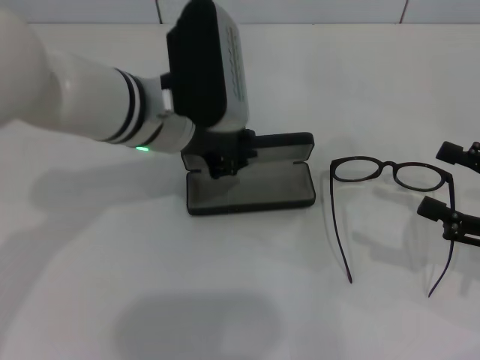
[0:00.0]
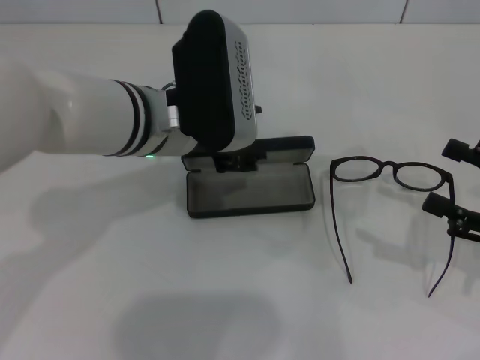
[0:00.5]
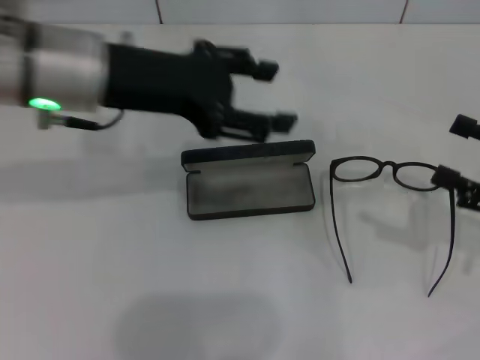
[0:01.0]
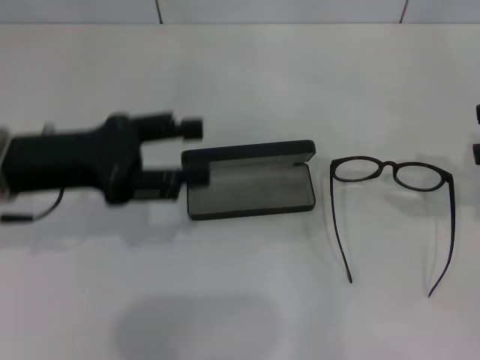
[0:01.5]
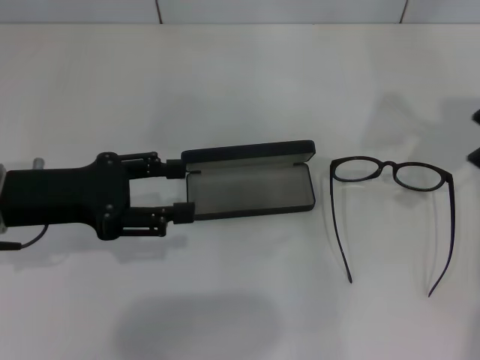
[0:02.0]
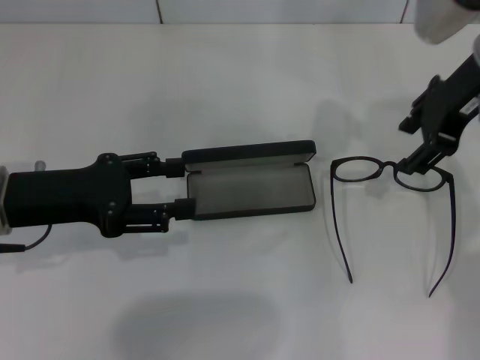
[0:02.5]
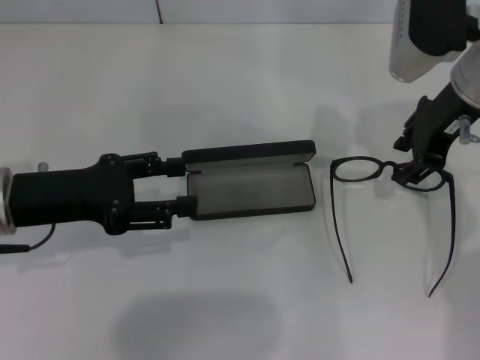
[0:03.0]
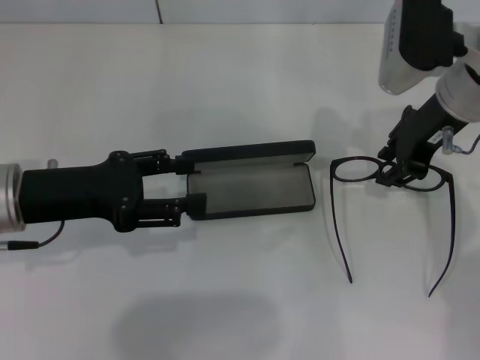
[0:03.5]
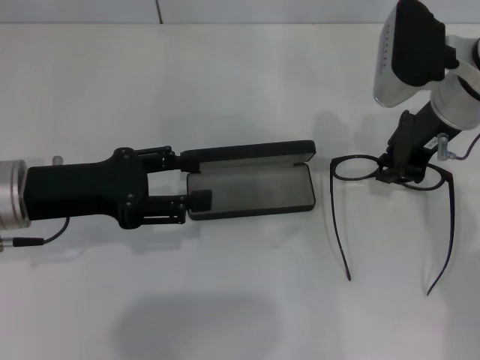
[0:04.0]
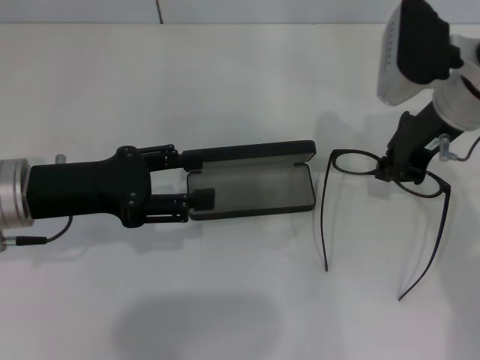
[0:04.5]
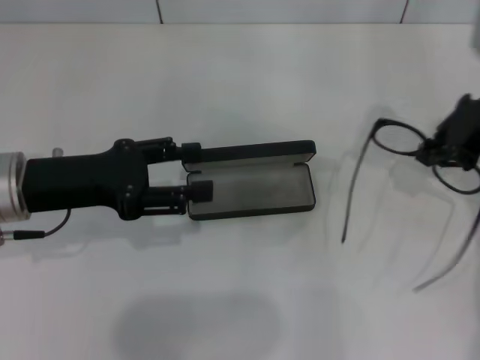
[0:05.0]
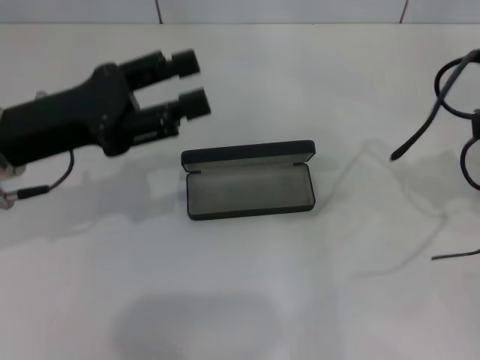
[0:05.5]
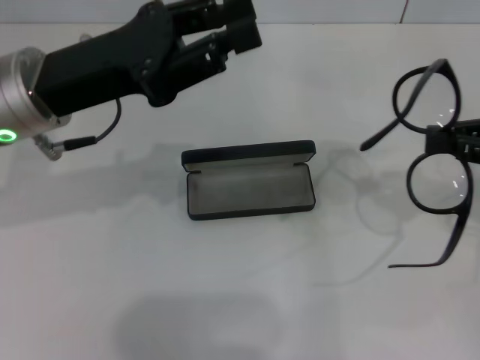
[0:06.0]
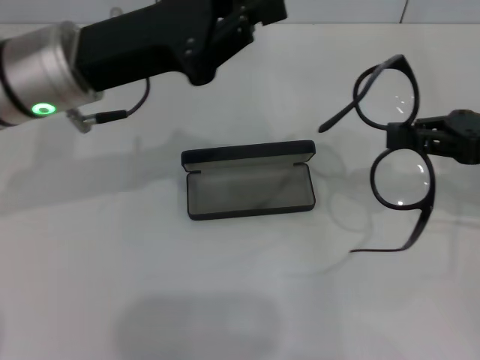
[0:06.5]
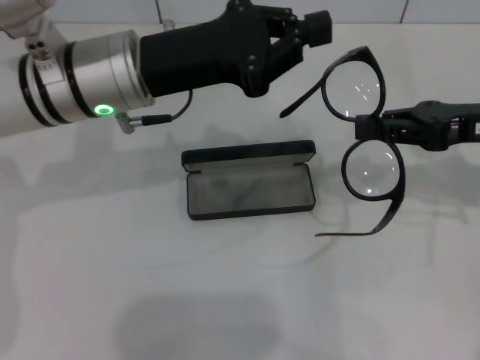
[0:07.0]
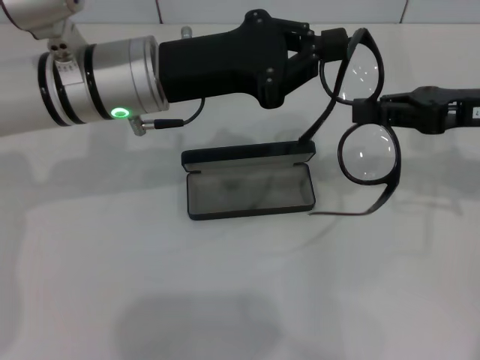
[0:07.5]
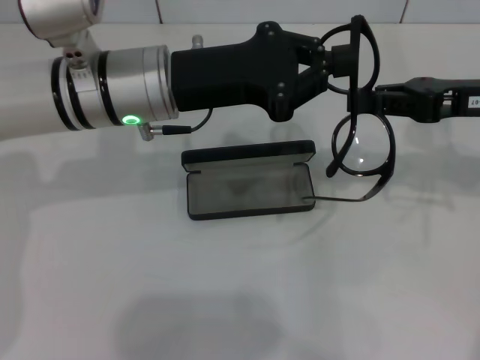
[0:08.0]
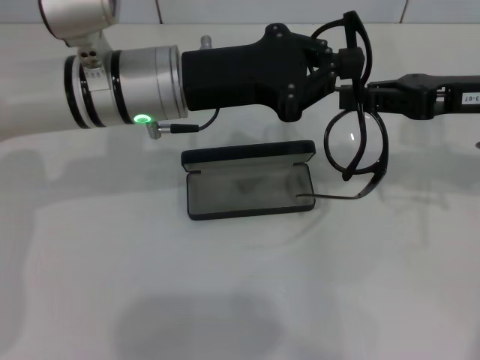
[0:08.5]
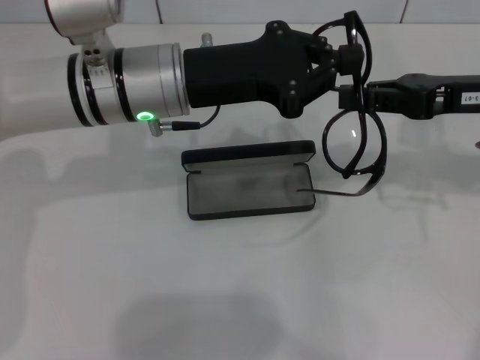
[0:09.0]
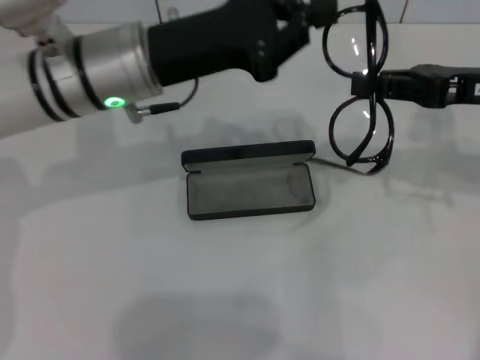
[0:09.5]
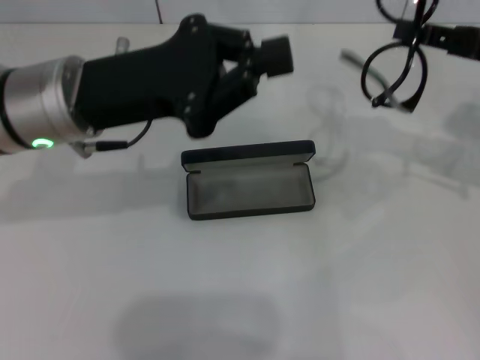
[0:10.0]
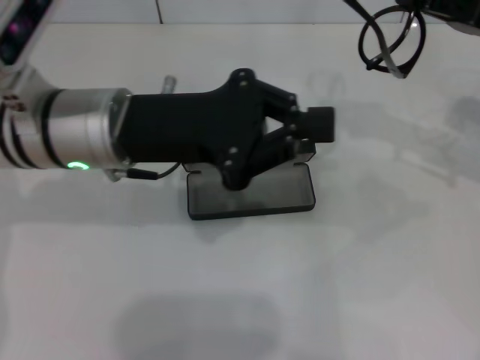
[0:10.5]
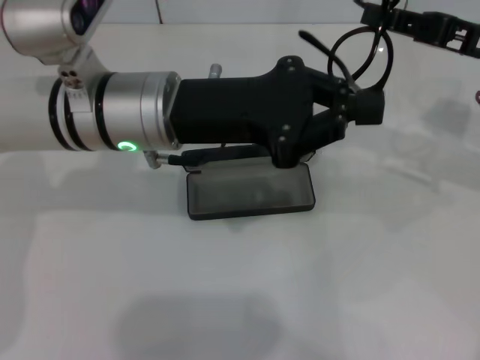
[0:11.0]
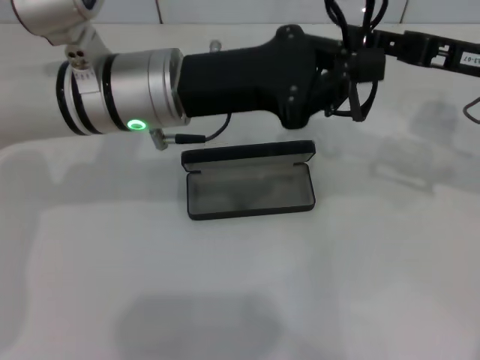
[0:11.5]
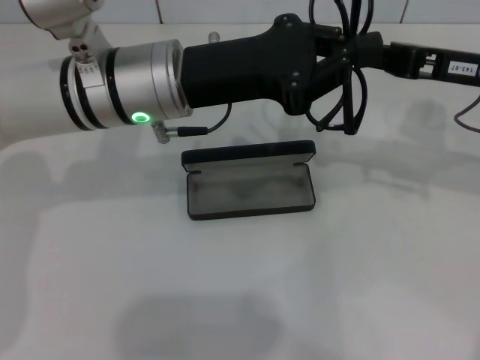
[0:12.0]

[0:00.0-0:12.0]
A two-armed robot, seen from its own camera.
Step, 0:00.0 to 0:04.0: Grab the eyeglass frame with your right hand.
0:00.0 to 0:02.0: The left gripper is displaced to the left and backward by some 15 cm, and opens up; the right gripper shifts about 25 cm upward and forward.
0:02.0 to 0:04.0: The right gripper goes approximately 15 cm downward and to the left, and closes.
0:04.0 to 0:06.0: The left gripper heads upward, covering approximately 5 cm. Meanwhile the right gripper moves to the right and backward, roughly 15 cm.
0:06.0 to 0:08.0: The left gripper is displaced to the right by roughly 5 cm, and closes. Meanwhile the right gripper heads to the left, covering some 5 cm.
0:08.0 to 0:10.0: The left gripper moves to the left, about 5 cm.
0:10.0 to 0:12.0: The right gripper travels to the left by approximately 5 cm. The left gripper shifts about 5 cm to the right.

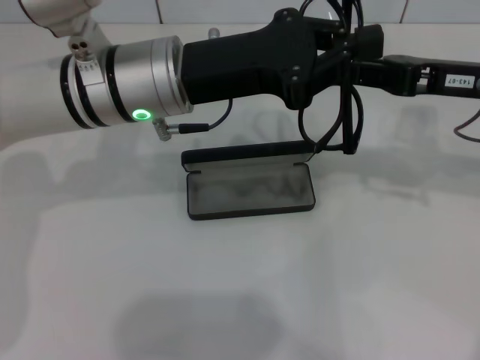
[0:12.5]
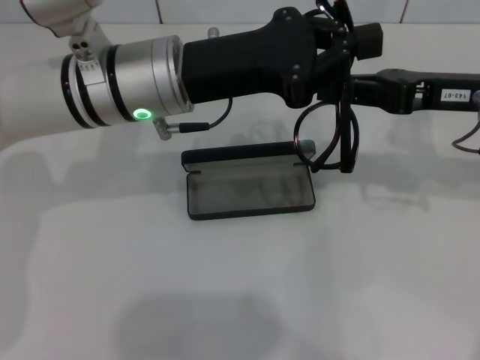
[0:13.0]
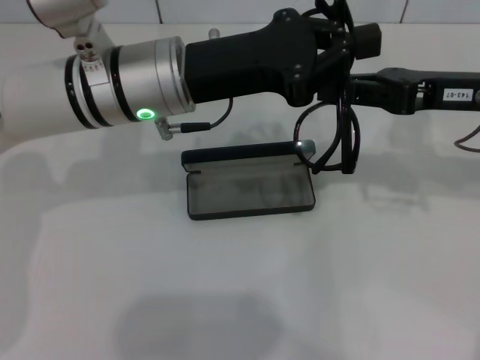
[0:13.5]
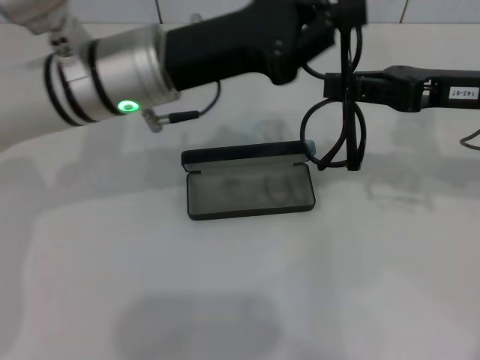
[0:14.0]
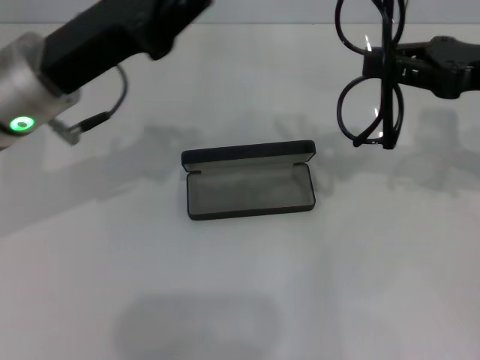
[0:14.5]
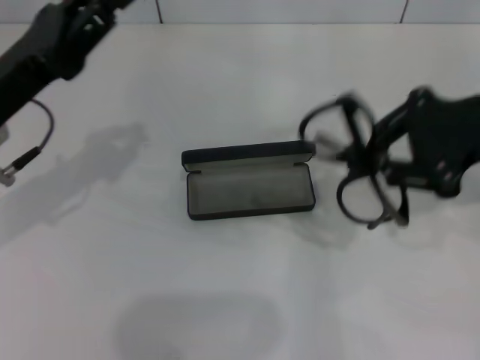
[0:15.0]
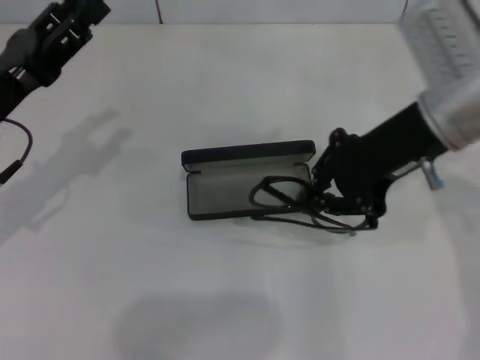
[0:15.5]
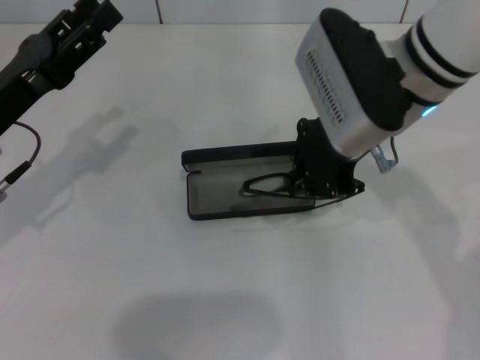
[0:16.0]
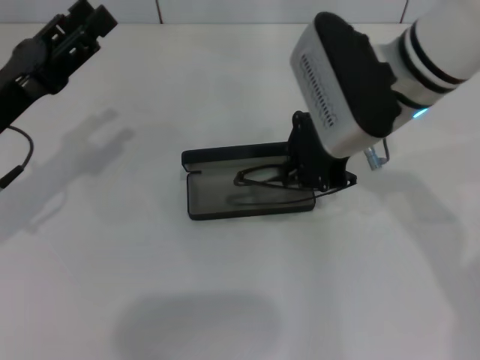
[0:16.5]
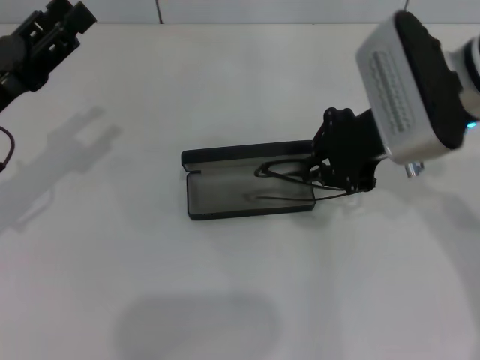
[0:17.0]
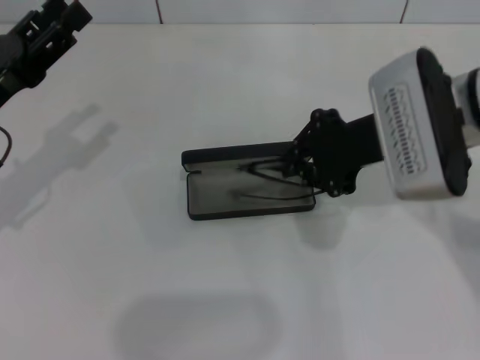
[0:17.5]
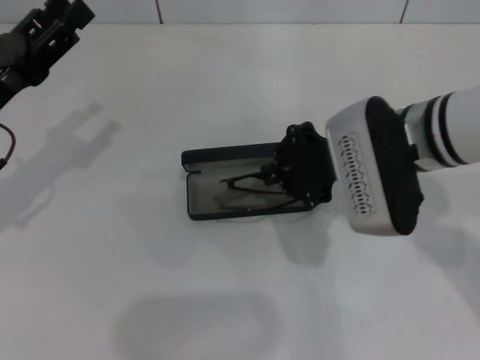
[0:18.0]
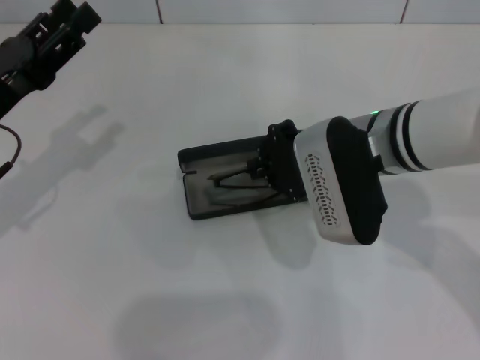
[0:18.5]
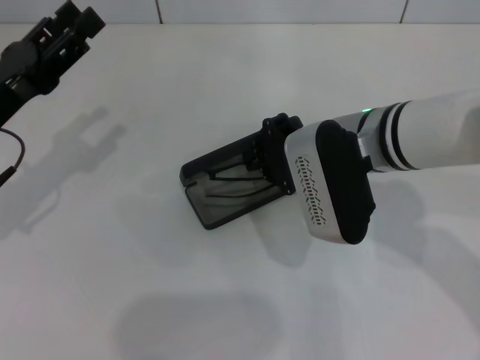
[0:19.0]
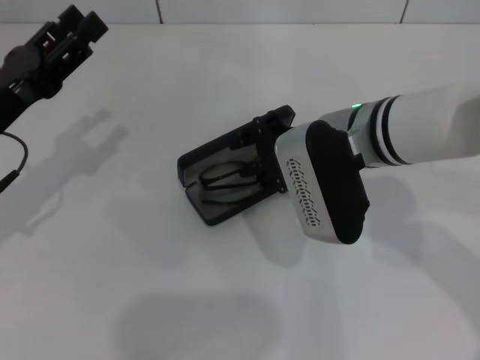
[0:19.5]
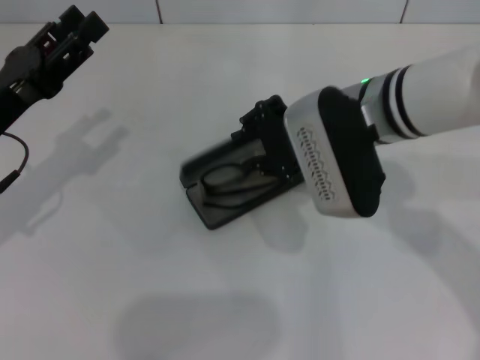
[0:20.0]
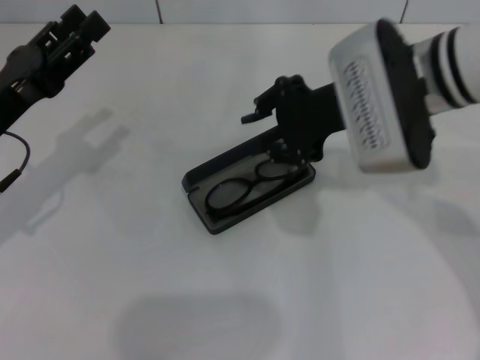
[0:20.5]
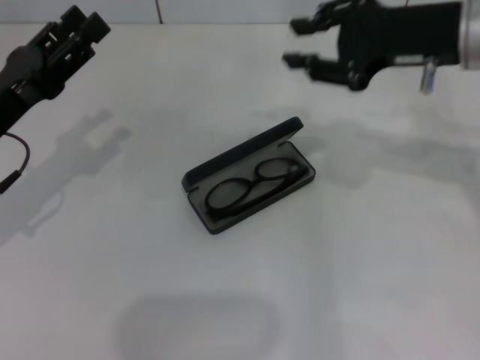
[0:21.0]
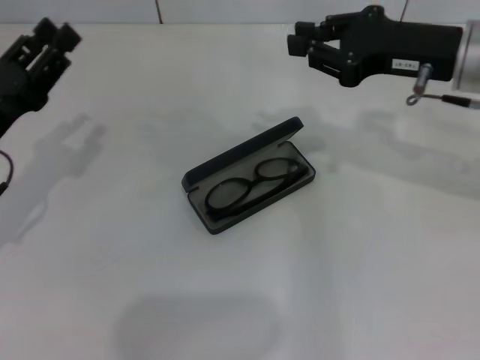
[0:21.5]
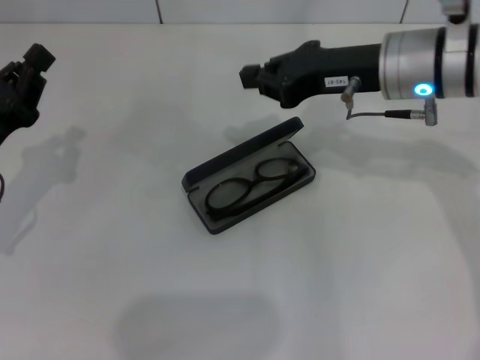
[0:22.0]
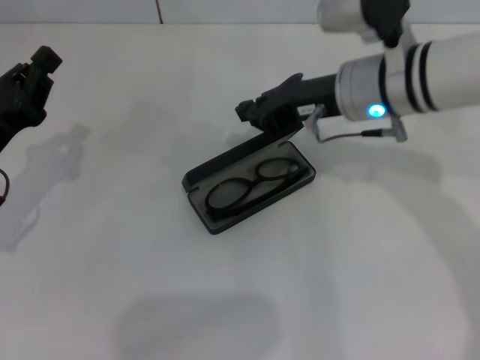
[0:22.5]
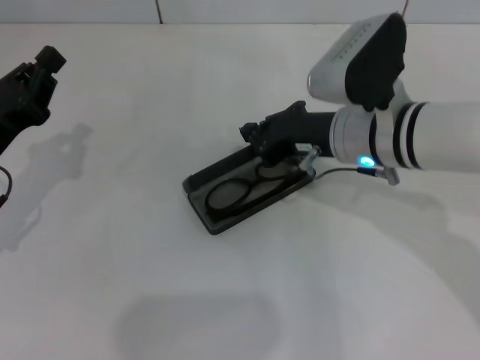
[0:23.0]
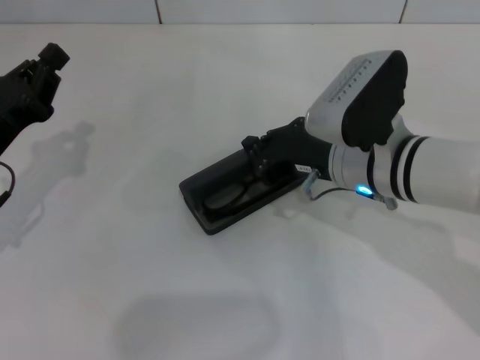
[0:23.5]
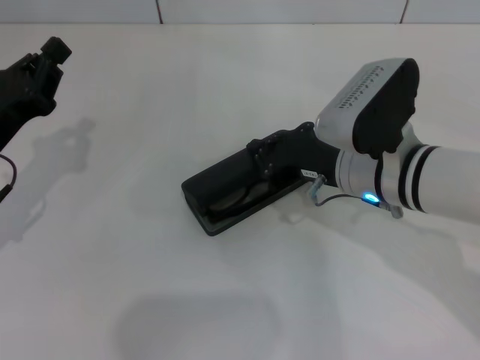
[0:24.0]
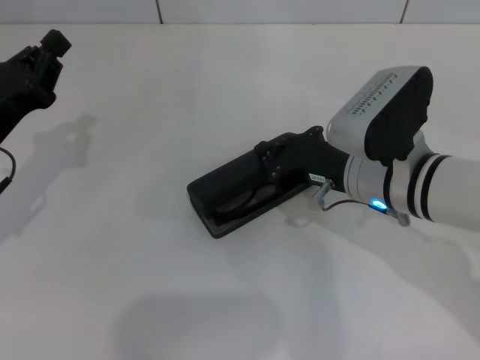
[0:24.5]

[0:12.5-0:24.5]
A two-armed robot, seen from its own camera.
Step, 0:14.0 to 0:20.0: Put the glasses into the case with your right hand.
0:12.5 to 0:14.5: The left gripper travels to the left by roughly 10 cm.
0:14.5 to 0:16.5: The right gripper travels to the left by about 15 cm, while the left gripper heads to the left and downward, covering roughly 10 cm, and opens.
0:16.5 to 0:18.5: The right gripper moves downward, approximately 5 cm.
0:18.5 to 0:20.5: The right gripper travels upward by some 5 cm.
0:20.5 to 0:22.5: The left gripper closes up. The right gripper goes to the right and returns, approximately 10 cm each way, and closes up.
0:22.5 to 0:24.5: The right gripper shifts roughly 10 cm backward and downward.

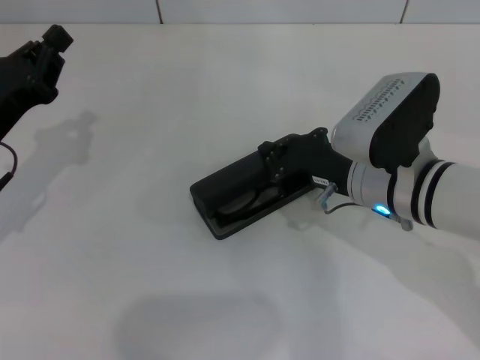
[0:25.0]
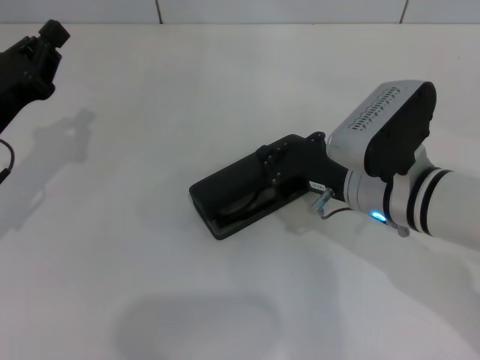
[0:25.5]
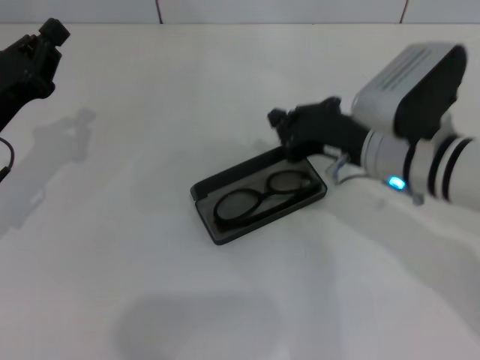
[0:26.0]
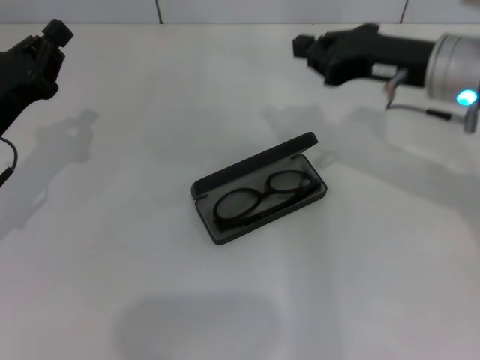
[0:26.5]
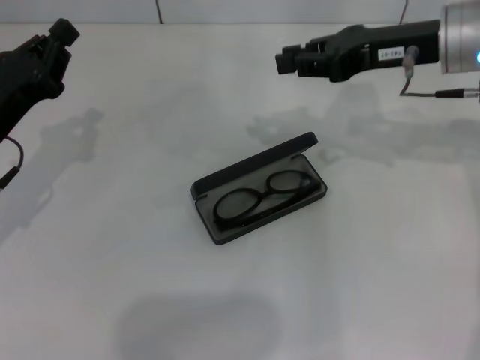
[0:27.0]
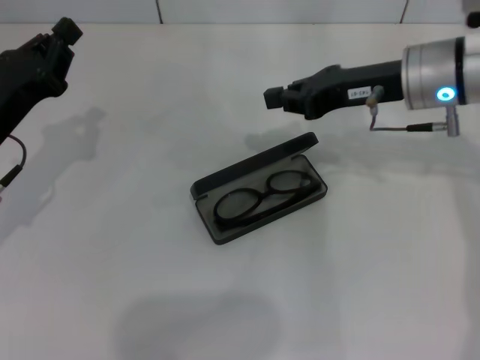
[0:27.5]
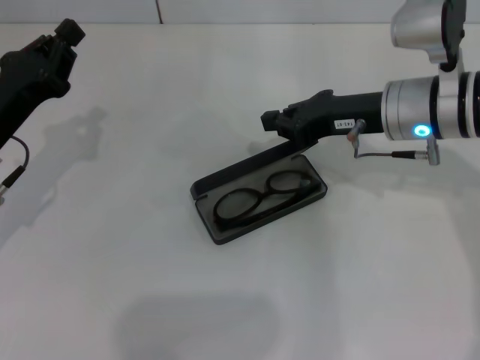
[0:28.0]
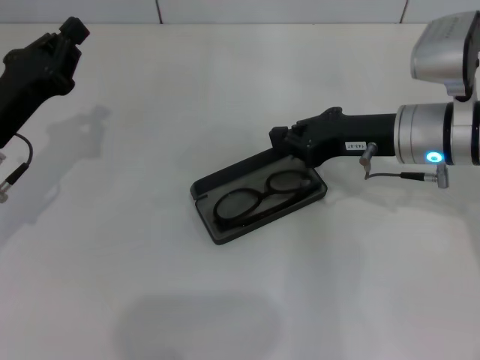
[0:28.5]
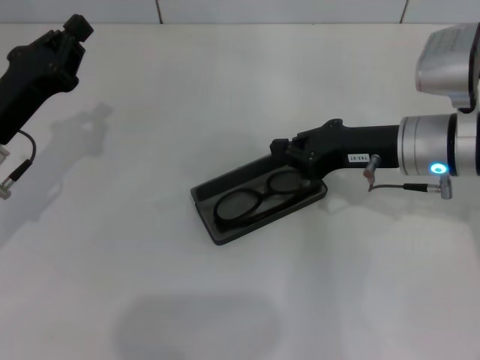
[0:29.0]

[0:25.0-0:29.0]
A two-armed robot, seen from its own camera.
0:25.0 to 0:27.0: The right gripper shifts approximately 15 cm upward, forward and to the right.
0:27.0 to 0:29.0: The right gripper travels downward by about 10 cm.
